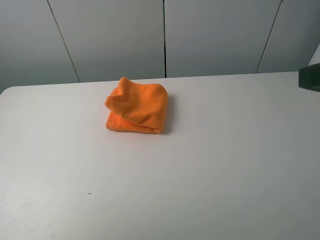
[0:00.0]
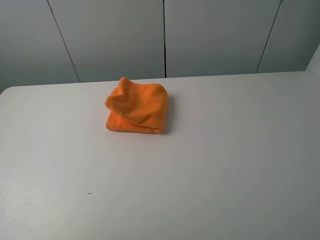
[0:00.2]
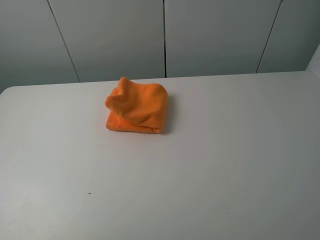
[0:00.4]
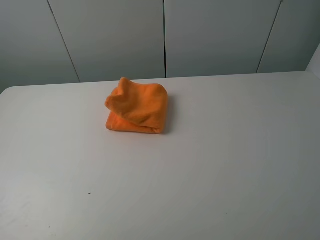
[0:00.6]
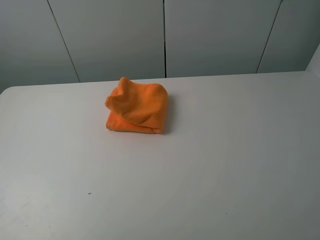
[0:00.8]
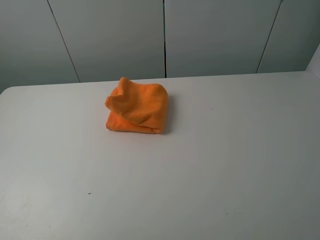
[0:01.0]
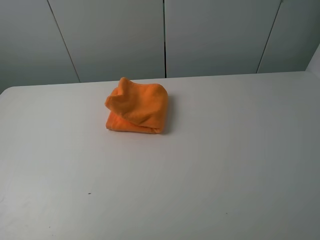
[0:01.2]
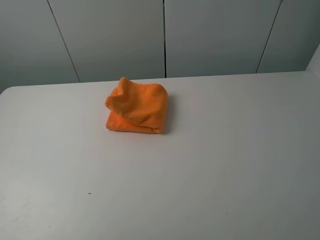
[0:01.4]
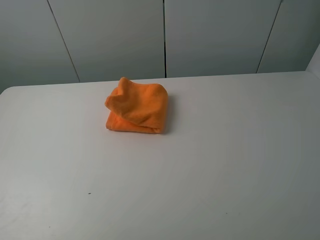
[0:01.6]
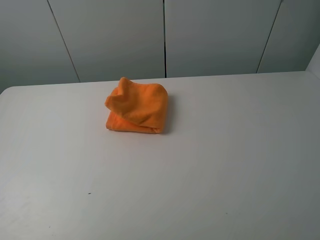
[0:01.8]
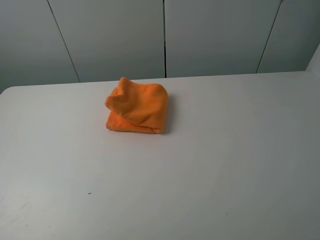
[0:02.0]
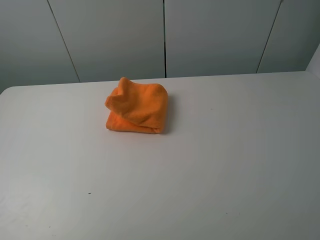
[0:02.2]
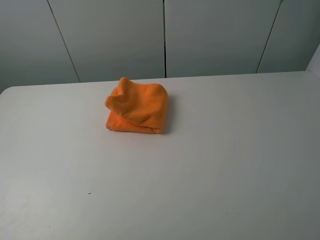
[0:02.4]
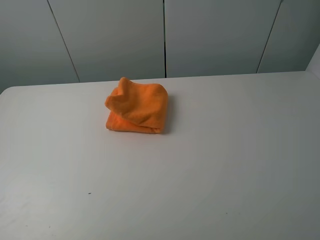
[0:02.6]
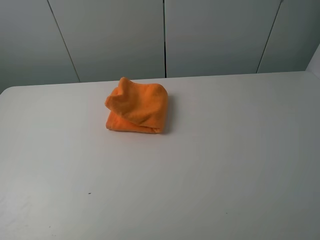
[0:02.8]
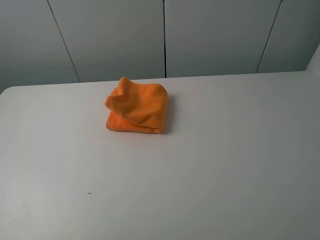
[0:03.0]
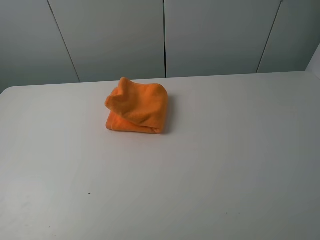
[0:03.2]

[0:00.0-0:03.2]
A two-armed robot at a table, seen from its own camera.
Task of the whole recording: fold the towels on the table.
0:00.0 to 0:01.6: The two grippers go roughly 10 cm backward.
